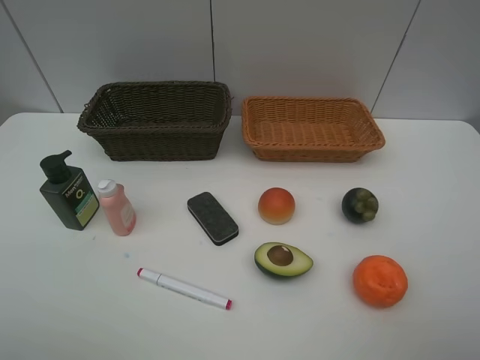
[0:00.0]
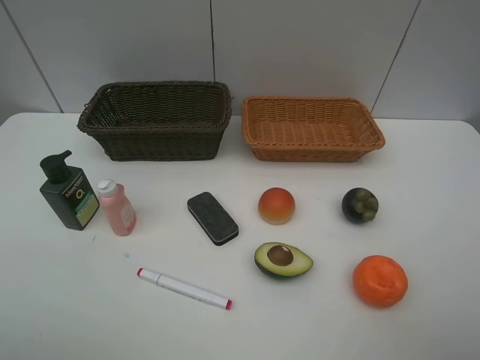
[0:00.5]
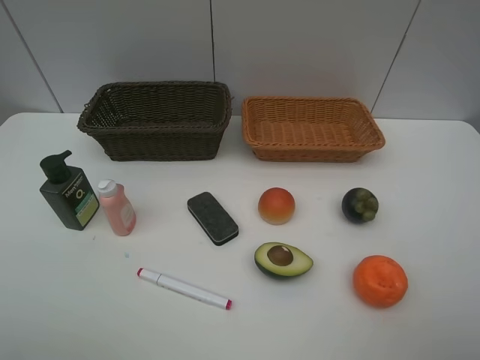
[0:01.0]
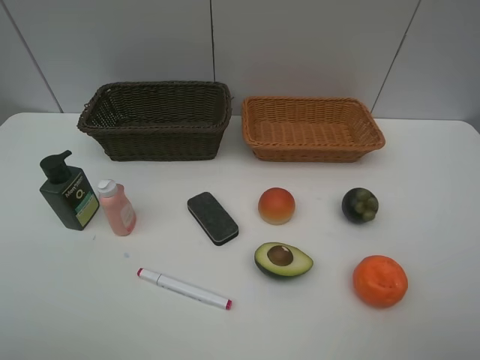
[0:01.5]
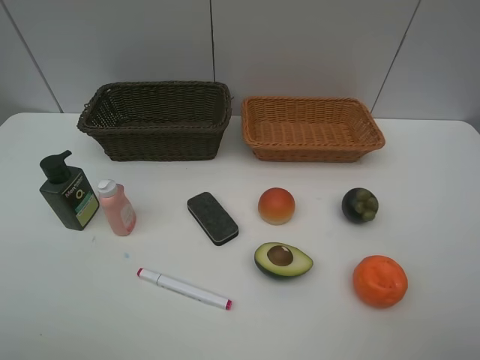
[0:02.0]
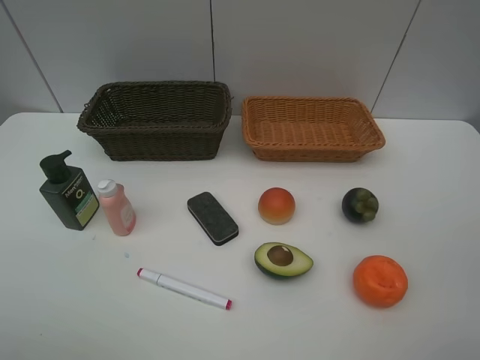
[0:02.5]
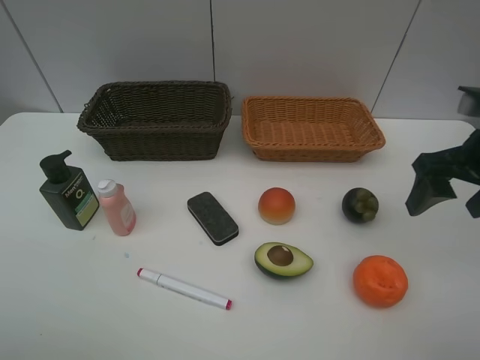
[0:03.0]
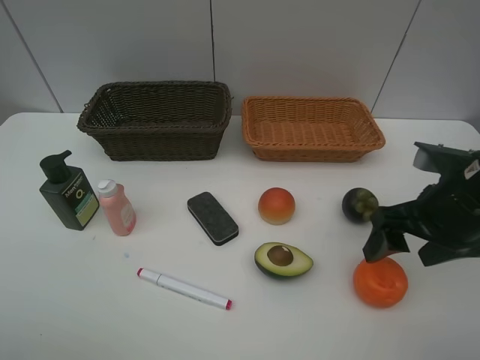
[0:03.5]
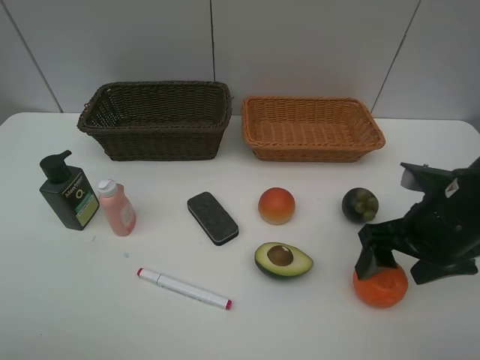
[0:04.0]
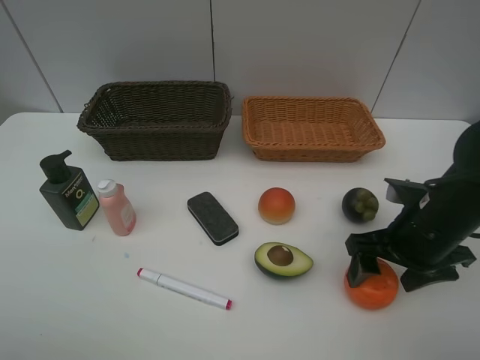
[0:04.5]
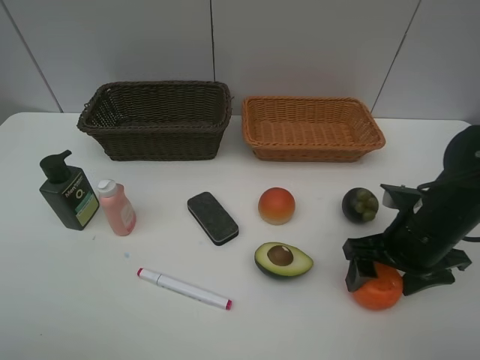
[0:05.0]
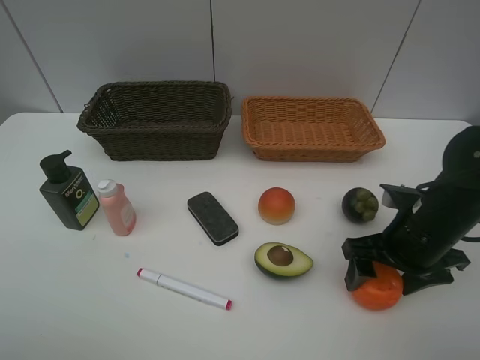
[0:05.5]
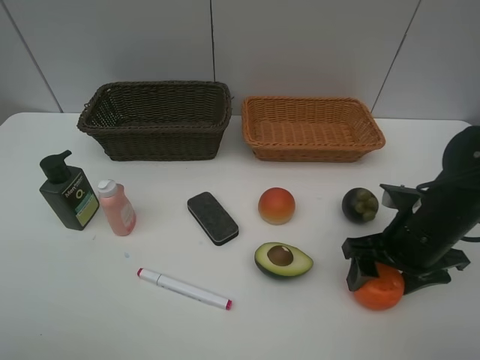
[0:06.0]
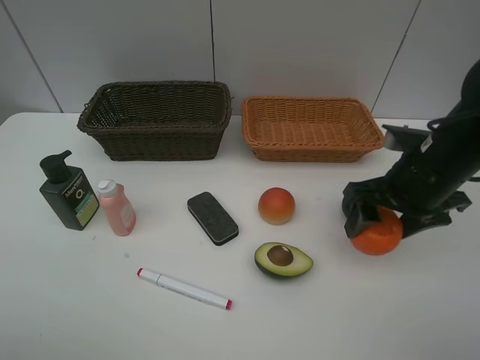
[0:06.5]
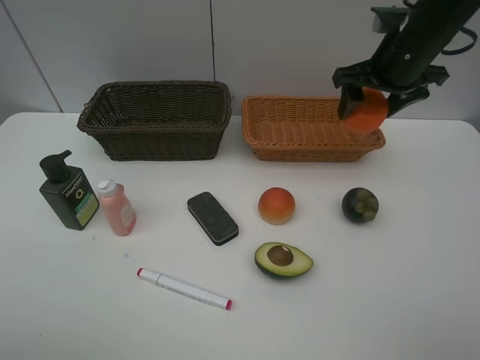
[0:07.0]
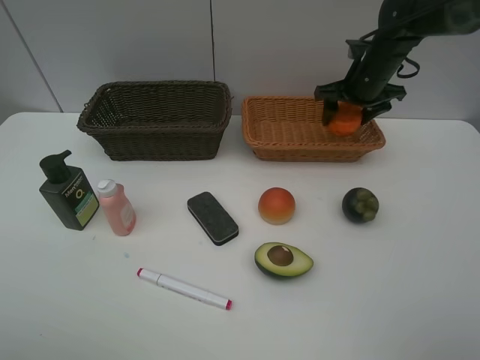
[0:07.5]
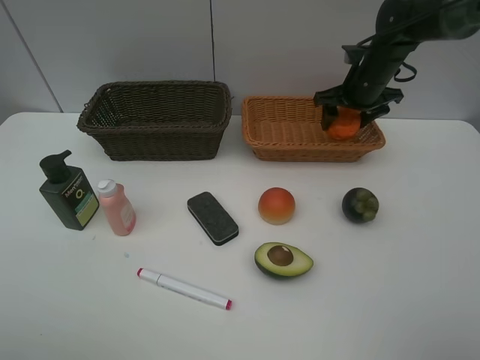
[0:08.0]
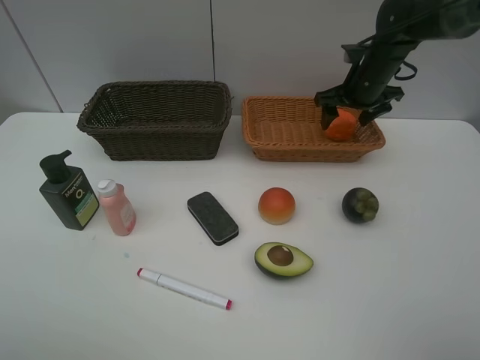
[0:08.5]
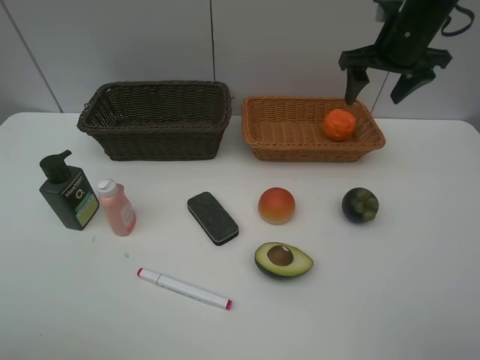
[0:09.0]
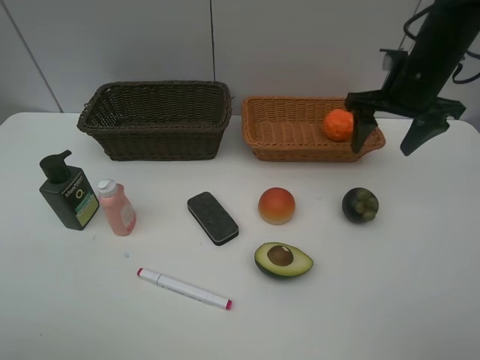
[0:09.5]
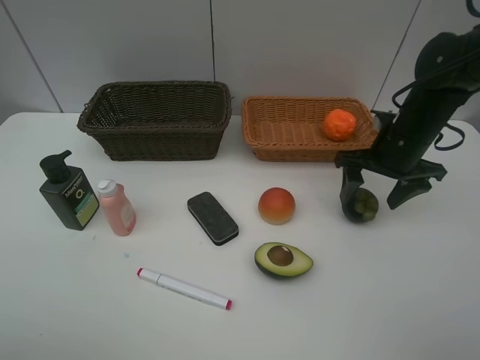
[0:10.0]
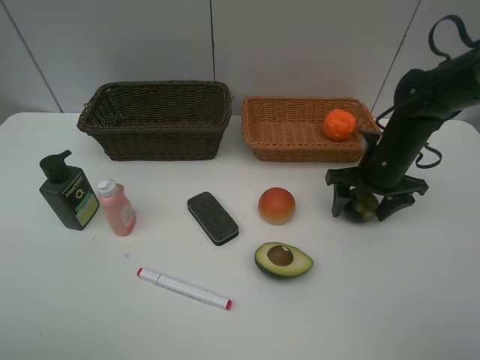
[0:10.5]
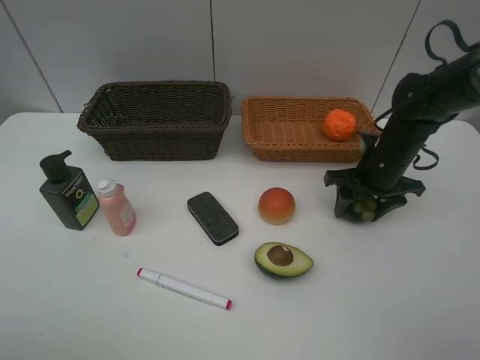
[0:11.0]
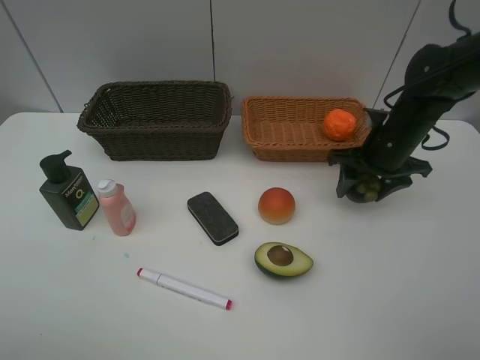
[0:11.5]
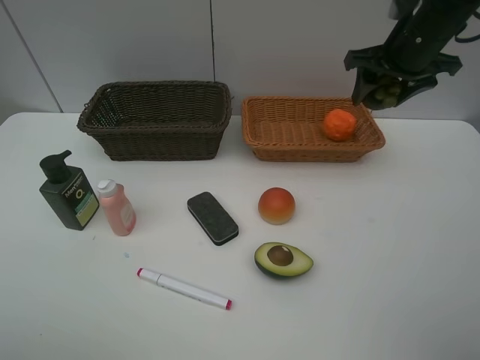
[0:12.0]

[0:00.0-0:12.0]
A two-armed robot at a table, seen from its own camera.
Task of the whole recording: Place multiple objects separately in different baskets.
Step, 0.0 to 6.0 s: Pick up the orange with right gripper.
Step, 6.5 to 8.5 s: Place the orange in the light basket with right gripper.
Step, 9.0 to 11.0 s: Pick up the mangosteen with right gripper.
0.0 to 2.0 s: Neither gripper changes place.
2.0 to 4.0 s: The right gripper heads forward, downward and to the left, covering approximately 25 cm.
4.0 to 6.0 s: The grippers move only a little.
6.0 to 8.0 s: The right gripper shifts some 25 cm forward.
8.0 to 10.0 s: The right gripper travels backward by roughly 15 cm.
10.0 to 12.0 s: The right gripper is displaced upward and forward by approximately 15 cm, and closes its fingers.

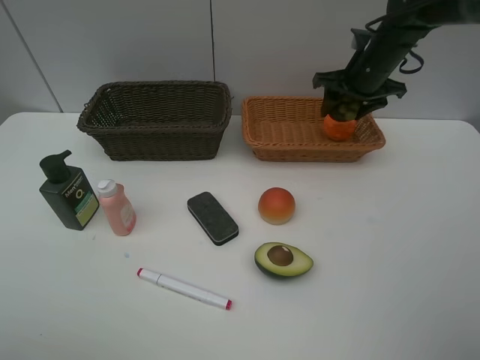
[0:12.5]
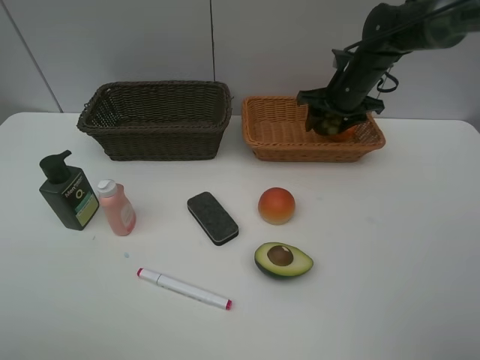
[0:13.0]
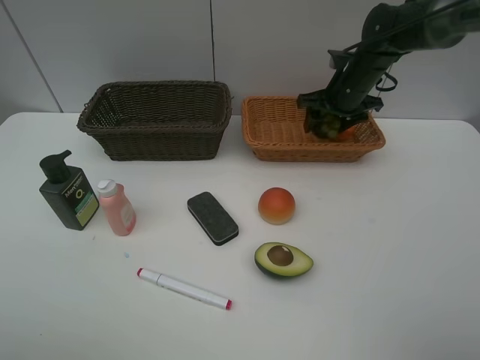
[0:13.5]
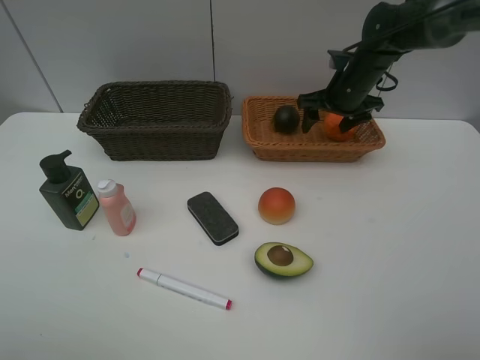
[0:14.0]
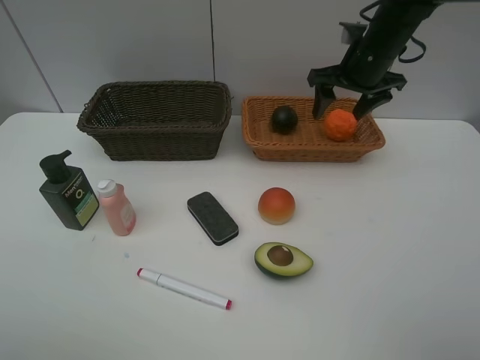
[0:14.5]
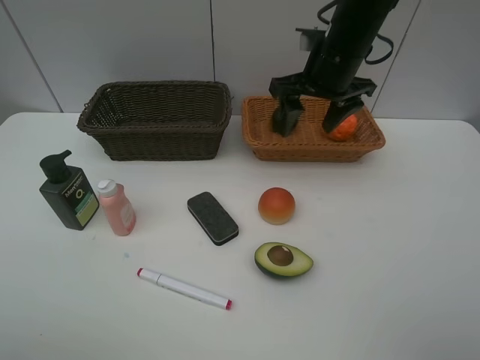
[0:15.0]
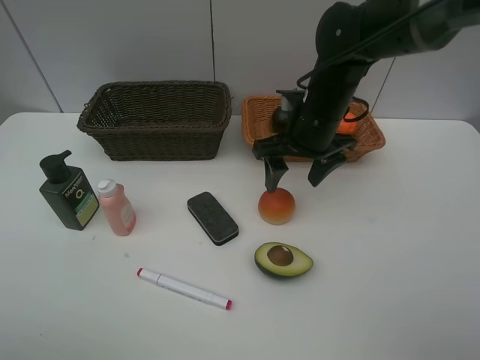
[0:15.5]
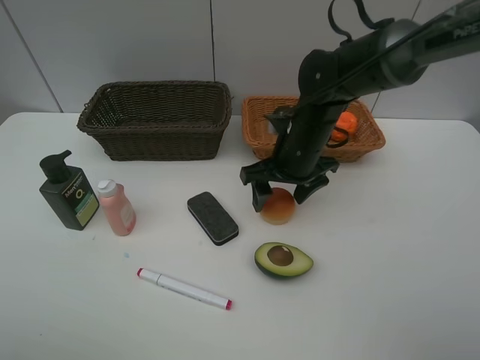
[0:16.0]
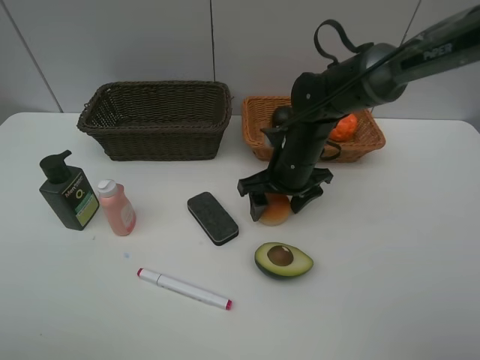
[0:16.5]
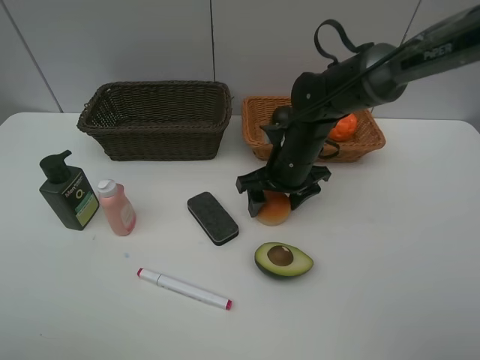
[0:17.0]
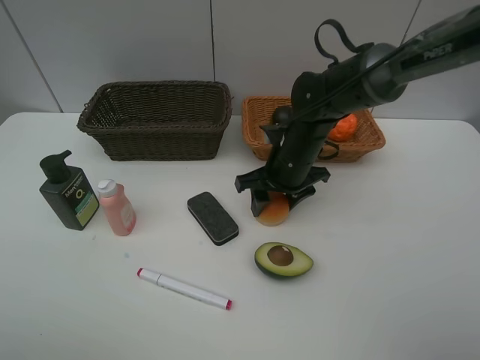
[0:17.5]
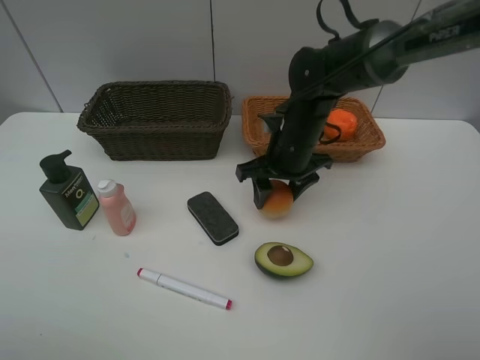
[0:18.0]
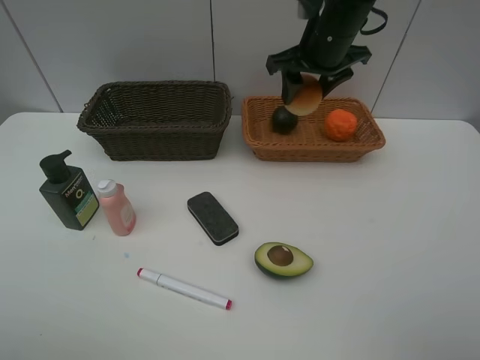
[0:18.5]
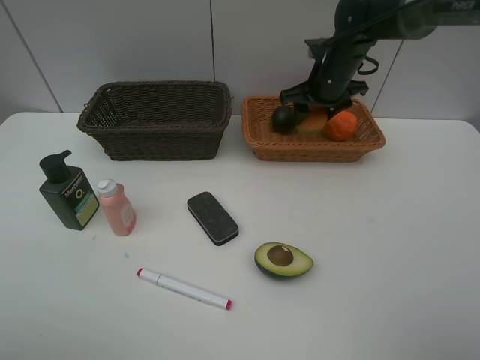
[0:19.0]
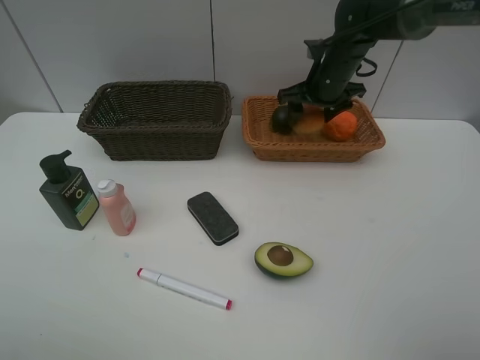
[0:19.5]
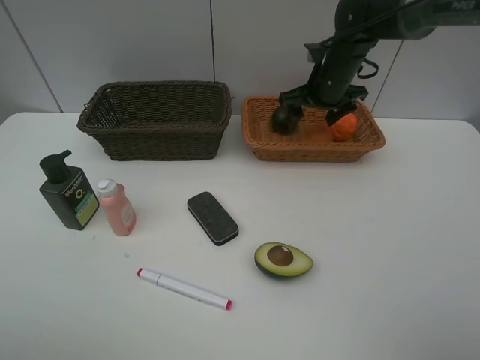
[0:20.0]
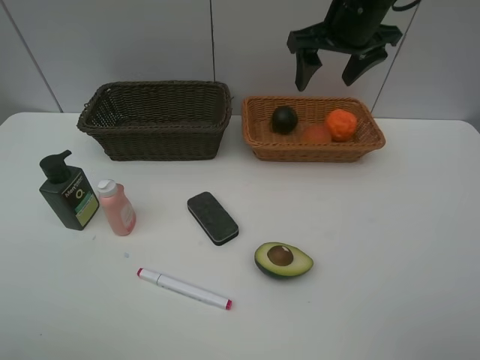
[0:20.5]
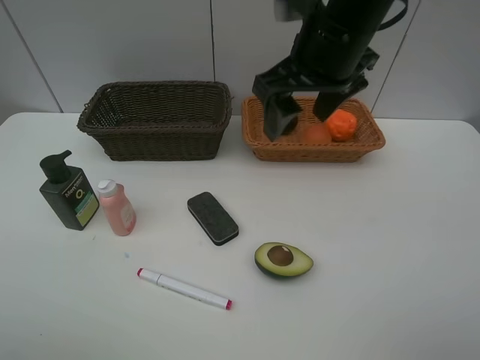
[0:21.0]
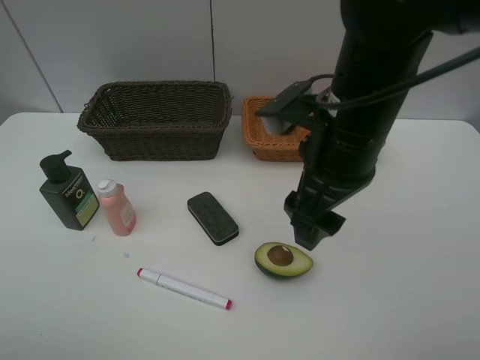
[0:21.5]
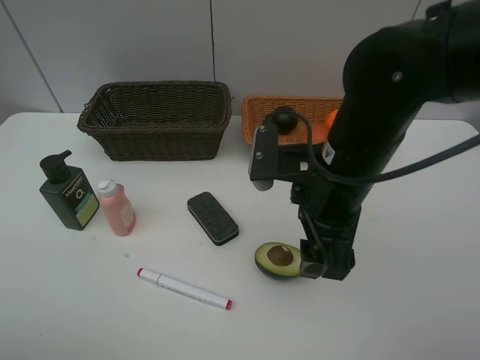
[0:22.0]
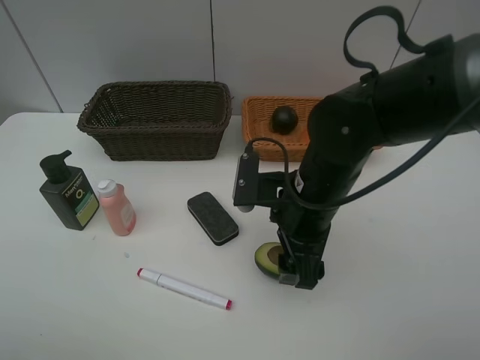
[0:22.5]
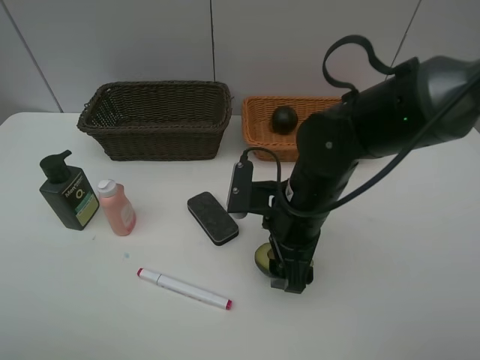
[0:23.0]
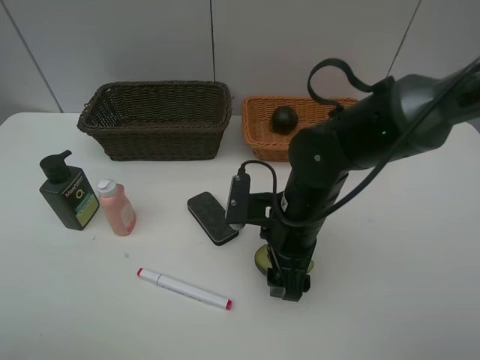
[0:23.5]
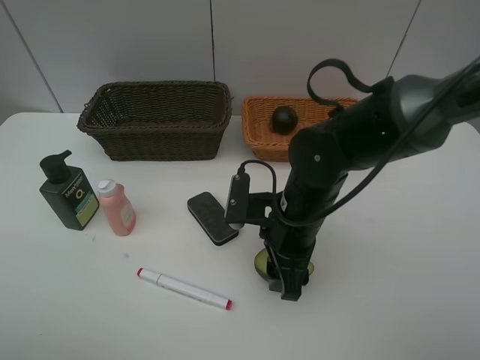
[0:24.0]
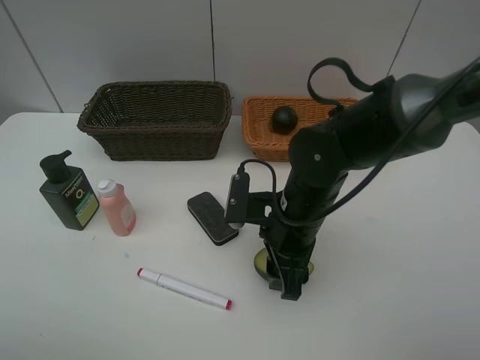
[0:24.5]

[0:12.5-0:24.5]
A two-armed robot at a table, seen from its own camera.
Task of the whole recording: Place multiple objects separately in different baskets.
Step, 12.5 to 14.0 s: Place the mangosteen in the light basket with right gripper.
Step, 14.5 to 18.0 s: Pick up egg yolk pastry with right gripper.
Step, 18.5 to 20.0 s: Place the egg yolk pastry in the light basket with right gripper.
12.5 to 14.5 s: The right gripper moves roughly 5 cm, and opens up.
14.5 to 16.5 s: The right gripper travels downward, to the left and backward by approximately 20 cm.
16.5 to 18.5 s: The right gripper moves upward and forward, approximately 20 cm, and closes up.
18.5 to 20.5 s: The right gripper is displaced upward by some 5 cm, and opens up.
20.5 to 22.5 s: The right gripper shifts some 25 cm downward and backward.
22.5 to 24.5 s: The right gripper closes.

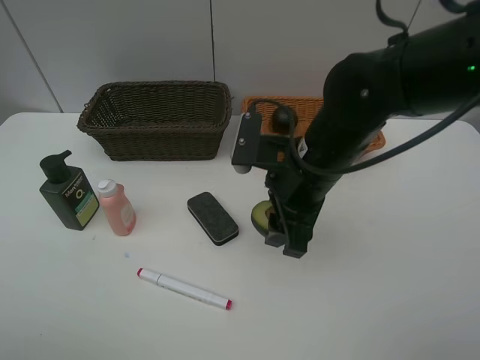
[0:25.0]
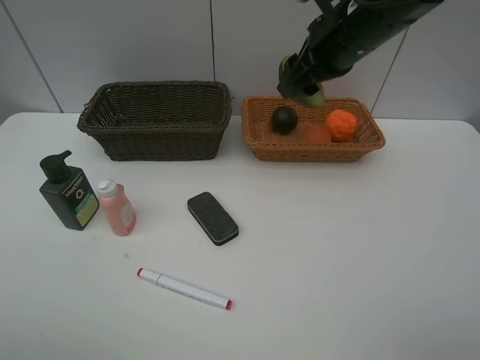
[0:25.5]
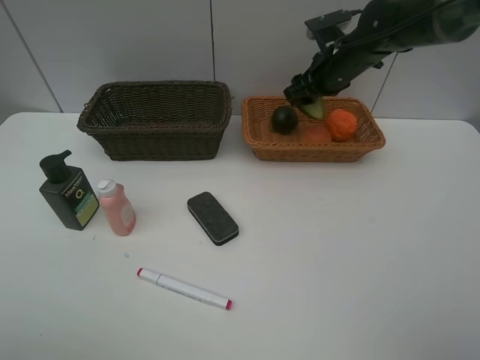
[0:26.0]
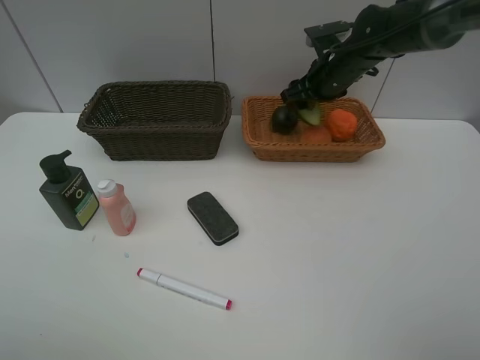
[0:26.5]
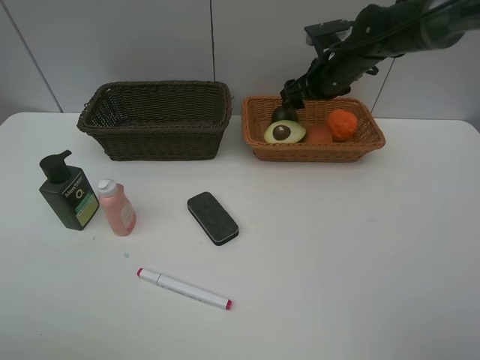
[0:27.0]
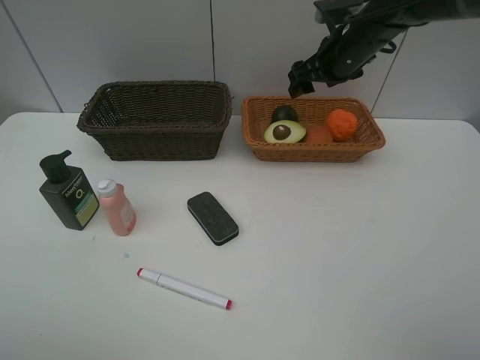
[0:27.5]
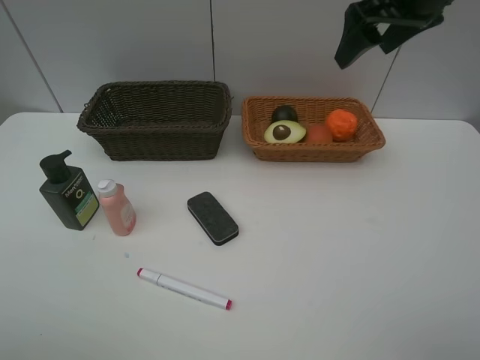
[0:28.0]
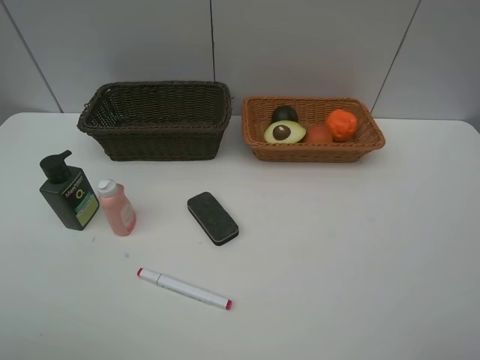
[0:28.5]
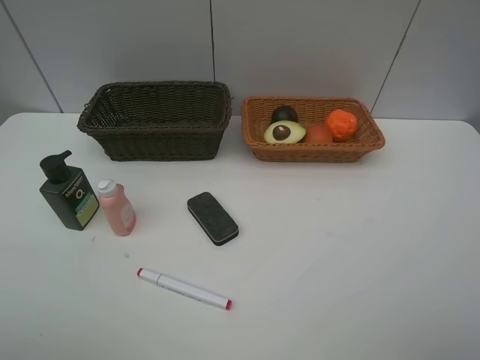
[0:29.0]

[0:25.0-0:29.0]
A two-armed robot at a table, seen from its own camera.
Task of the whole recording: Place multiple objects separately in different baskets.
Step, 25.0 to 26.5 s: Place the avocado in the light basket with right gripper.
25.0 to 27.0 s: The right gripper travels forward by some 20 cm, and opens up.
27.0 to 29.0 s: The right gripper travels backward by roughly 50 cm.
